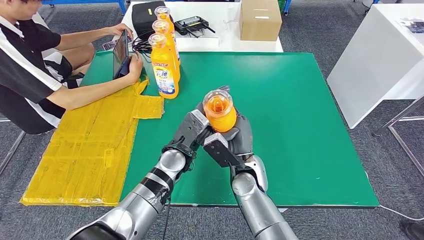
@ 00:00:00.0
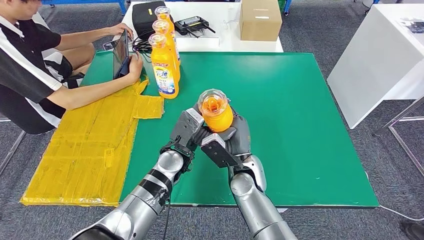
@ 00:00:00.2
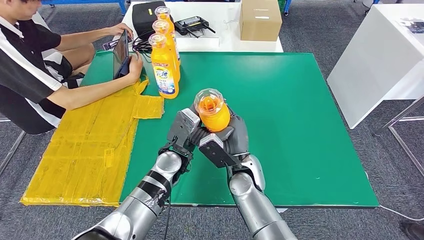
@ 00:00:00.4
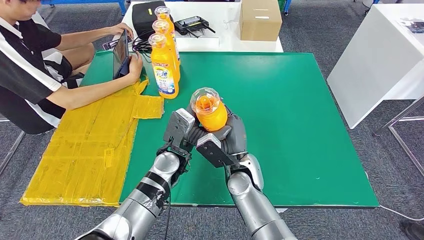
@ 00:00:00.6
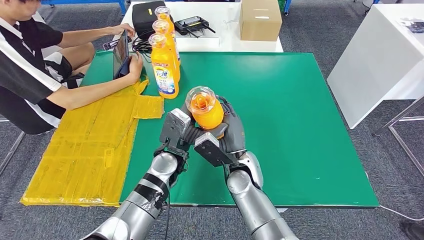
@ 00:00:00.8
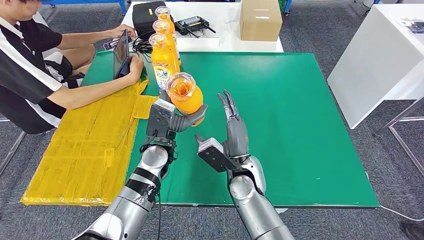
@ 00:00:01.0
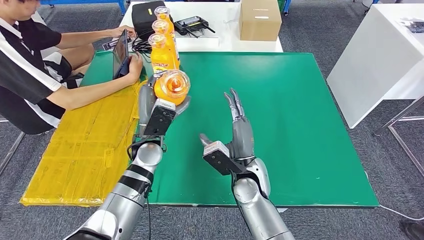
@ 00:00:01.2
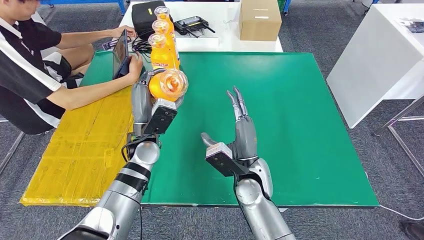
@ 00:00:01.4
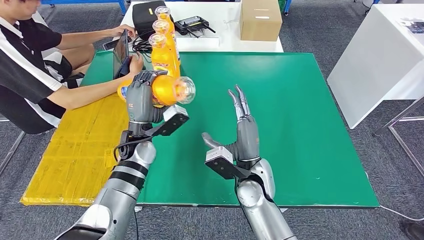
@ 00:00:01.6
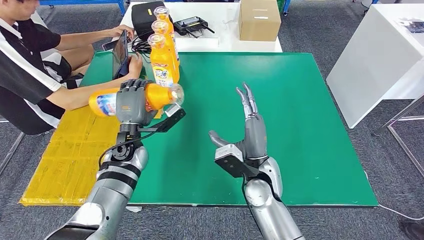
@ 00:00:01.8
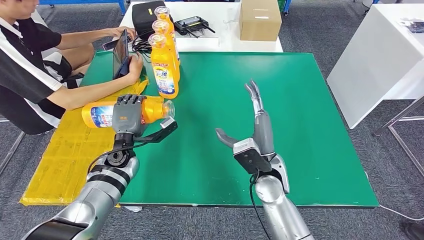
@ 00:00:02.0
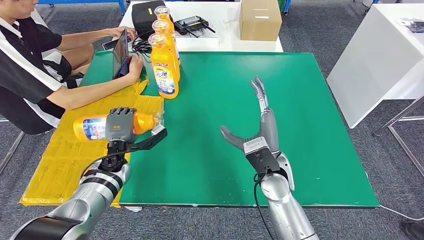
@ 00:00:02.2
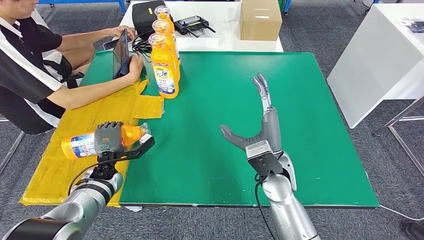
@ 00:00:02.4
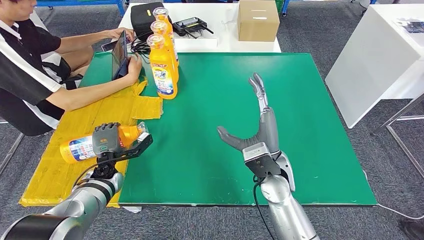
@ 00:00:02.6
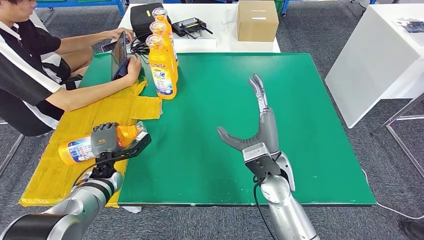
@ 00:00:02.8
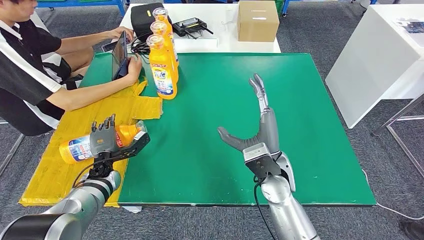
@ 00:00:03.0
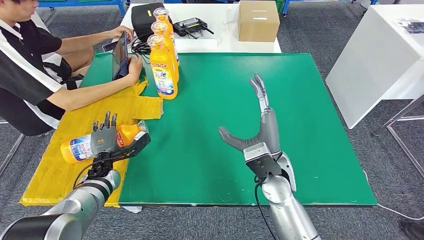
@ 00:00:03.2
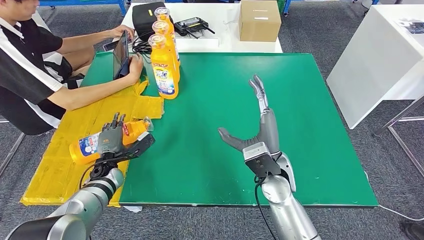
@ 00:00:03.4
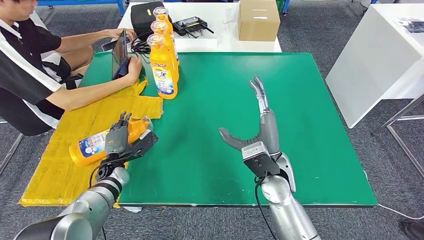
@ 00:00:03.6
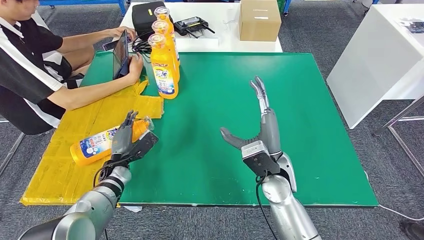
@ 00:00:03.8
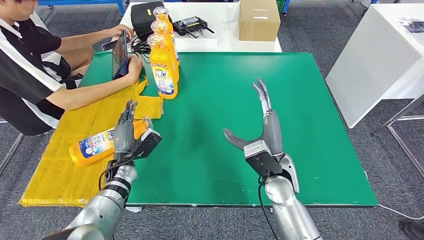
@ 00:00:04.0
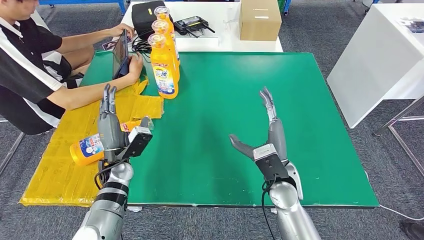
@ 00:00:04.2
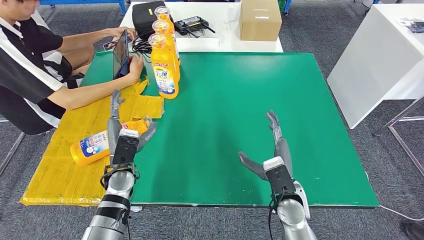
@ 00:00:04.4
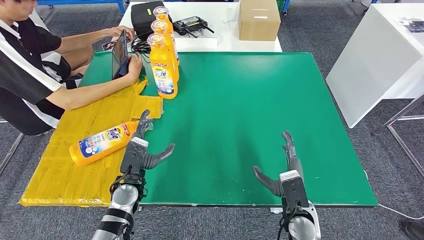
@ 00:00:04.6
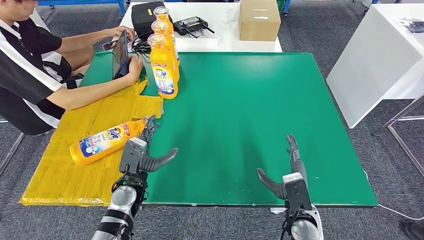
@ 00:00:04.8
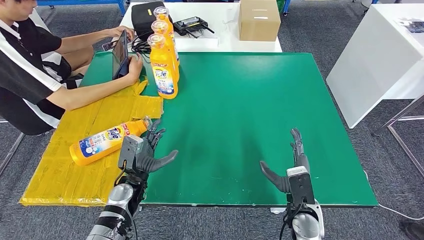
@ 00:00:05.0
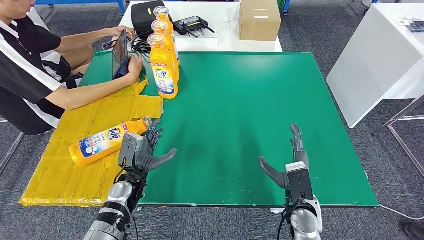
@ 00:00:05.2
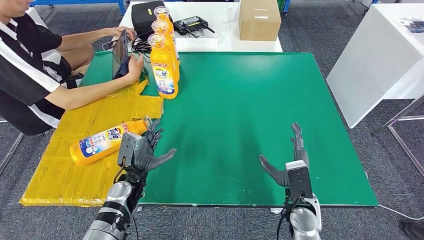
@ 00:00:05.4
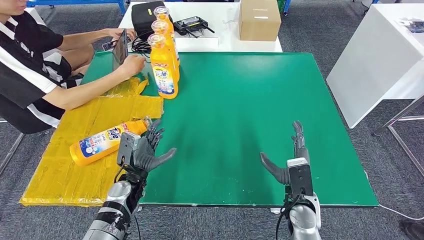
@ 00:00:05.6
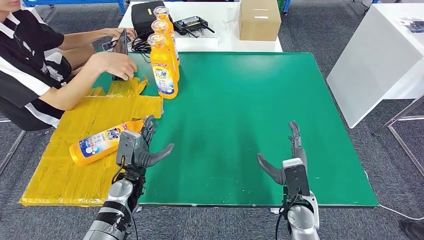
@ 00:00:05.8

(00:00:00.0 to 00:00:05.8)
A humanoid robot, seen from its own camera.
Step, 00:00:00.0 - 00:00:05.8: Flip the fast-moving consumer goods bottle to the front side.
00:00:00.0 - 00:00:01.4: The left hand heads to the left, covering about 10 cm.
